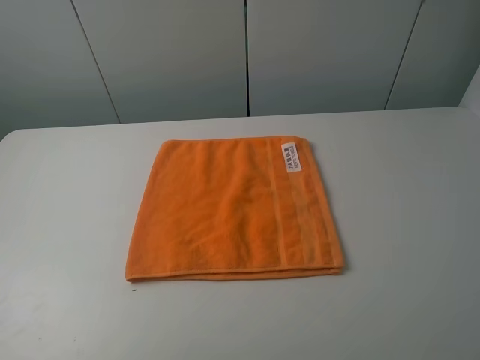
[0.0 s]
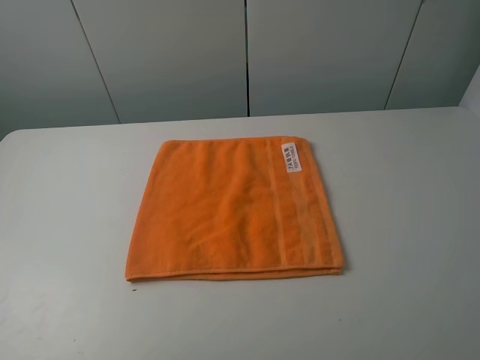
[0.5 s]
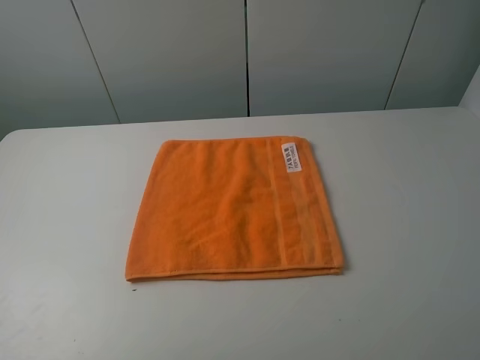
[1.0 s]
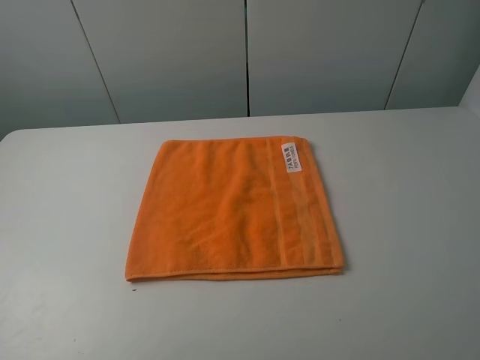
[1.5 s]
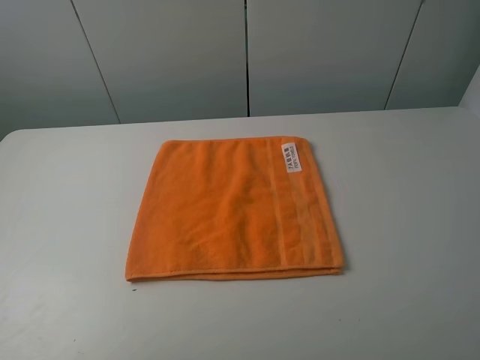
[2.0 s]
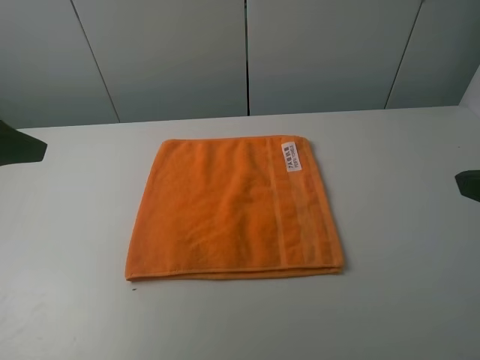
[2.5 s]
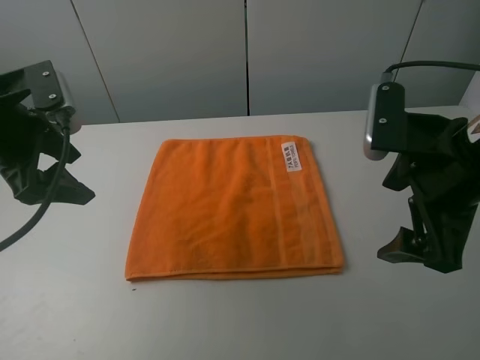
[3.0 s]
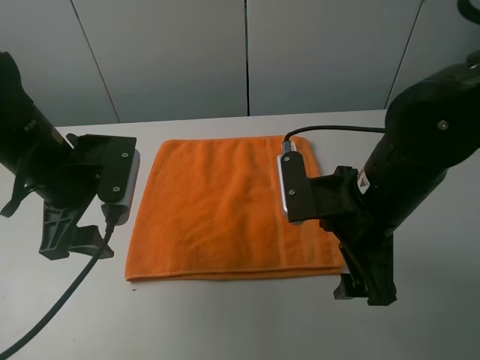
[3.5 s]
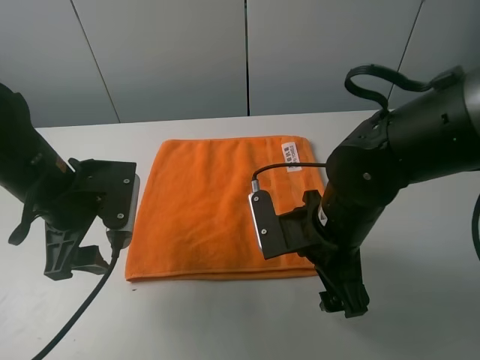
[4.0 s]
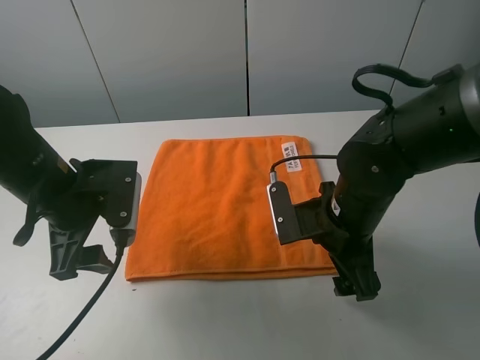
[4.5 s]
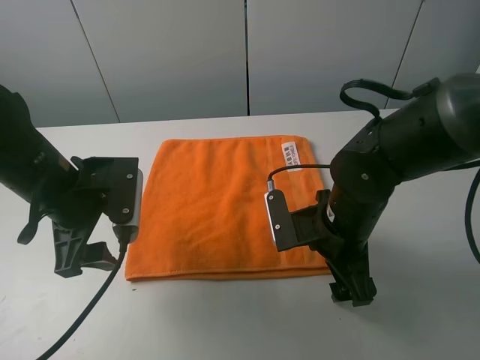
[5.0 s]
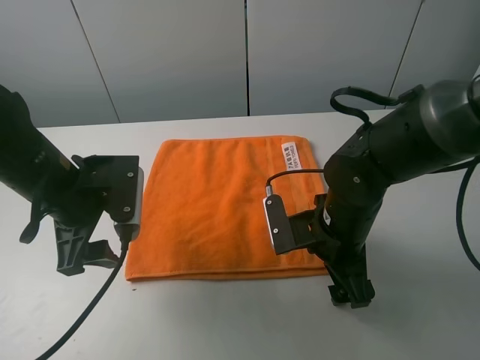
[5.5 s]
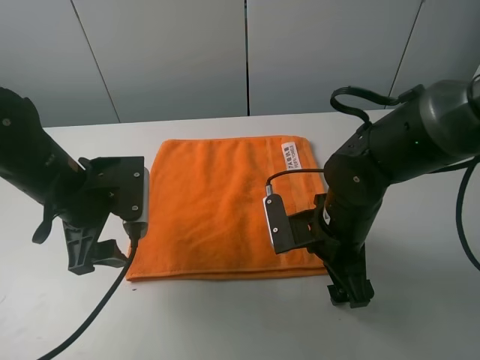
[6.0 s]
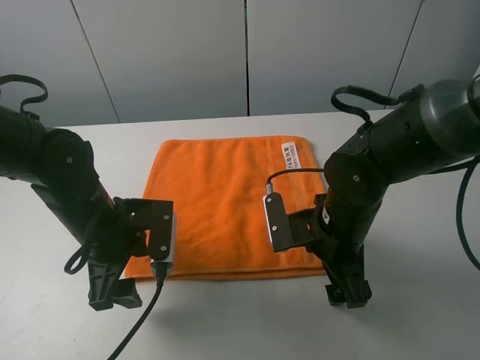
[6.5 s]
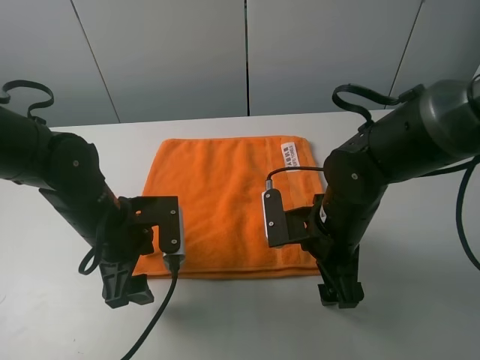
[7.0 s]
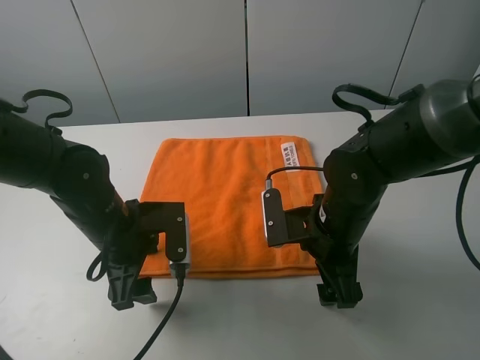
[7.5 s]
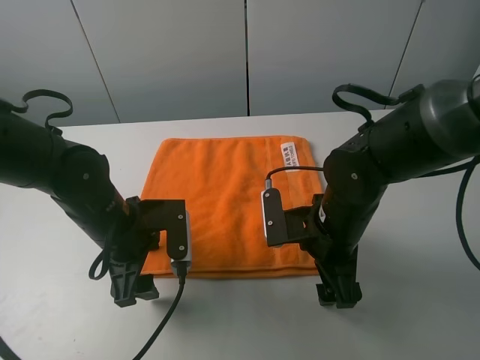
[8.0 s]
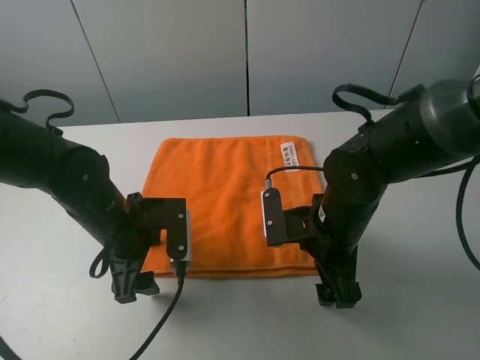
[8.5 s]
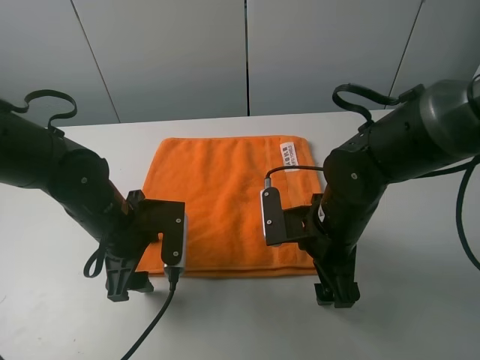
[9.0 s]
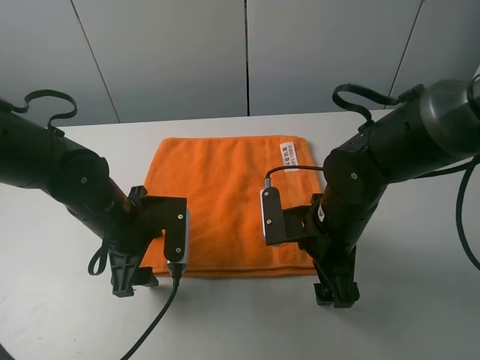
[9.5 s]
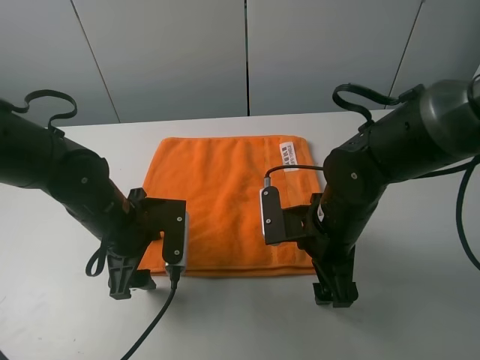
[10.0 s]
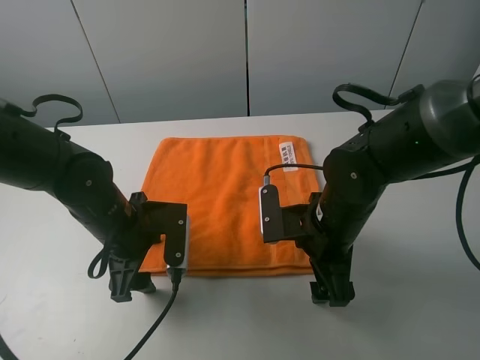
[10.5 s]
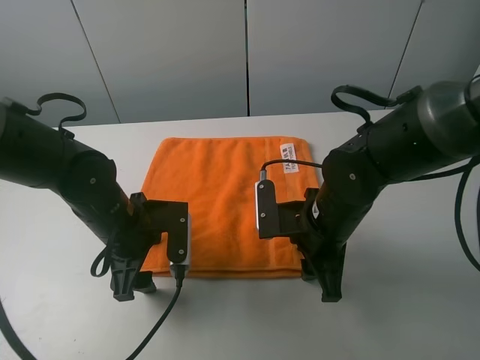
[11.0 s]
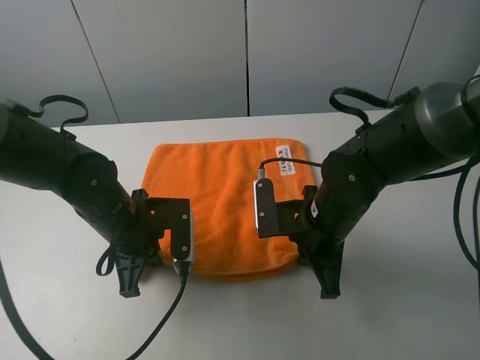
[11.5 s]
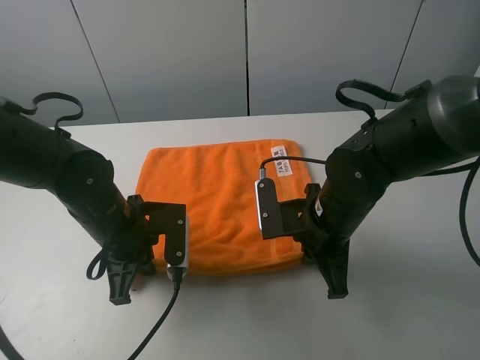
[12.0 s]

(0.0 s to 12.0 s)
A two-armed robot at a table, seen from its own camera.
Task of the whole recording: fold the towels on the table.
Step, 0.0 s - 11.0 s: Grasp the orange towel with the right gripper.
2.0 s - 4.0 s: The left gripper heads forward, downward and to the right, covering roughly 25 cm; the right gripper travels forward, to the left and downward by approximately 30 cm.
4.0 s - 6.0 s: The grippers make only small movements.
6.0 s - 8.0 s: The left gripper moves downward, about 5 cm.
8.0 s - 10.0 s: The grippers move only a little.
10.0 s - 12.0 s: The left gripper closes its fingers; the right gripper closes up.

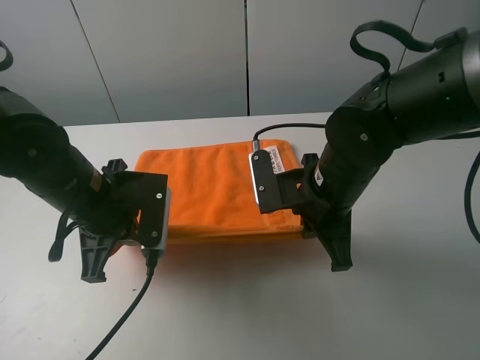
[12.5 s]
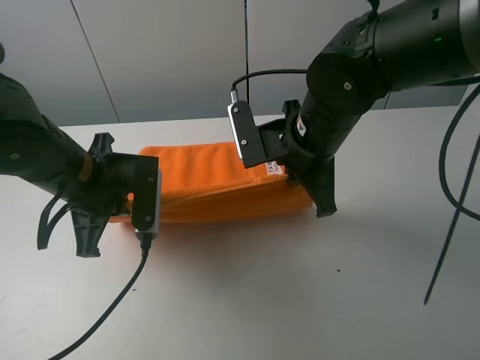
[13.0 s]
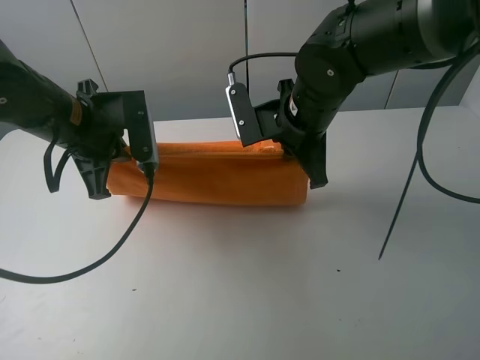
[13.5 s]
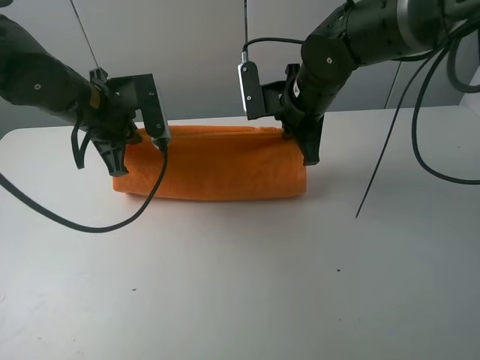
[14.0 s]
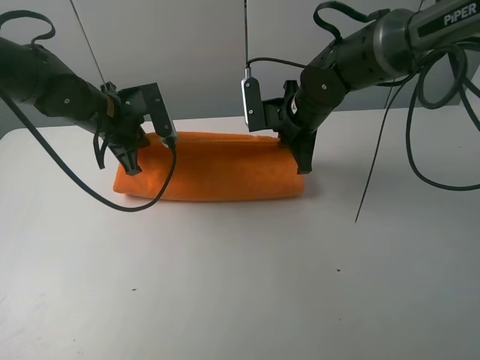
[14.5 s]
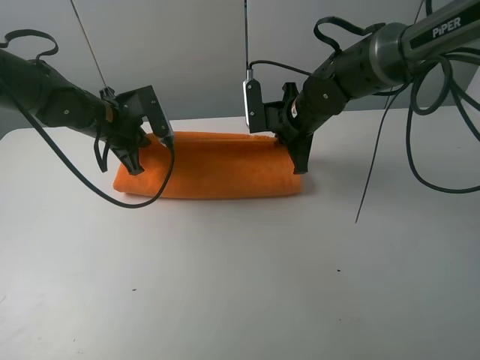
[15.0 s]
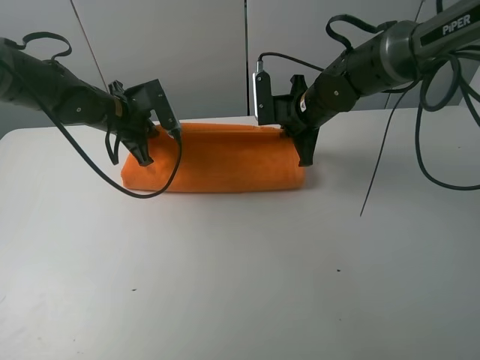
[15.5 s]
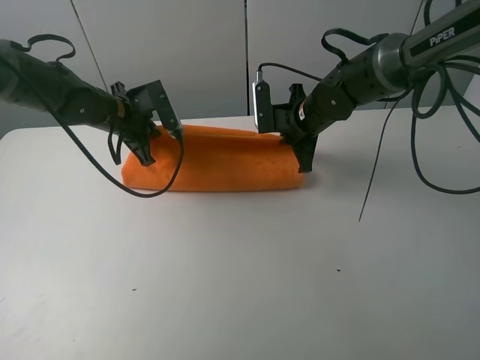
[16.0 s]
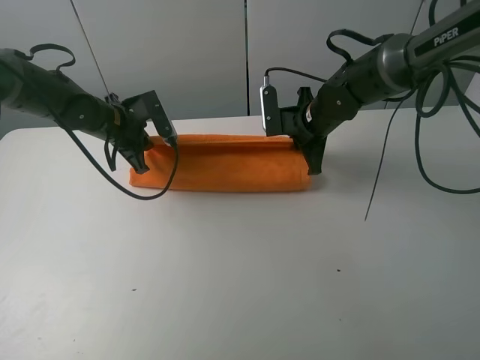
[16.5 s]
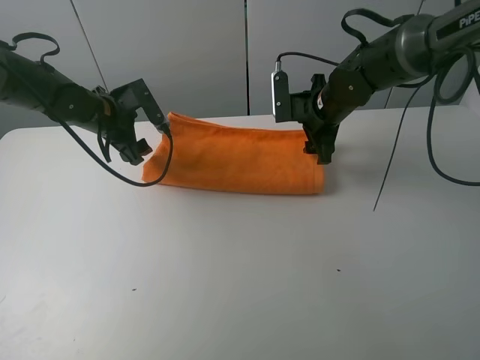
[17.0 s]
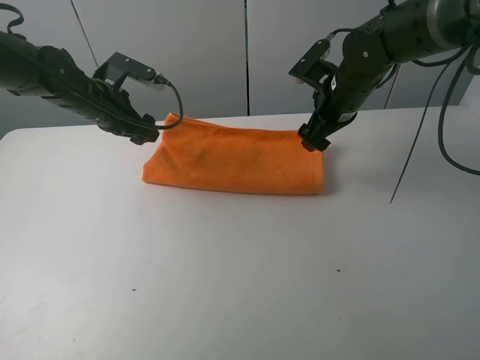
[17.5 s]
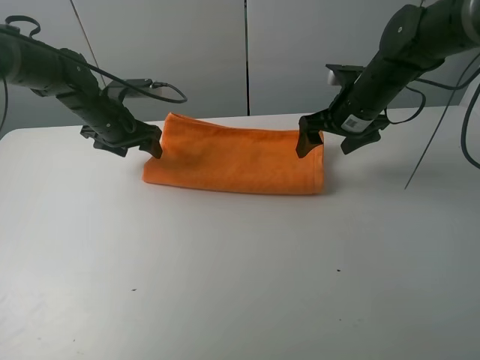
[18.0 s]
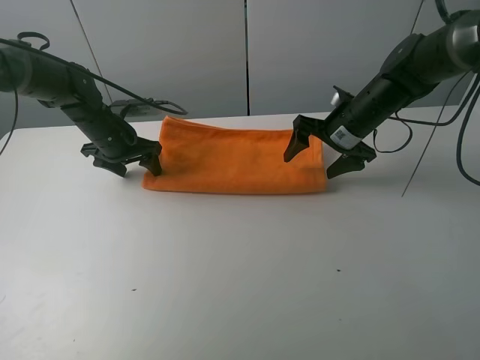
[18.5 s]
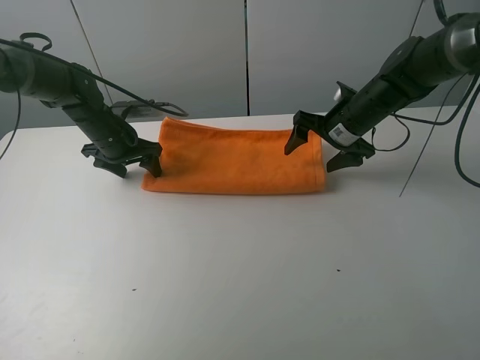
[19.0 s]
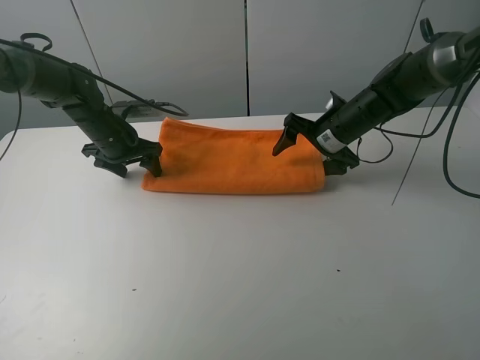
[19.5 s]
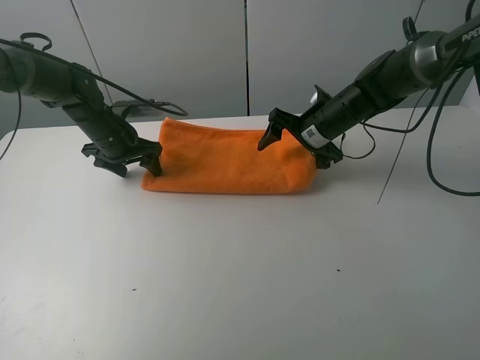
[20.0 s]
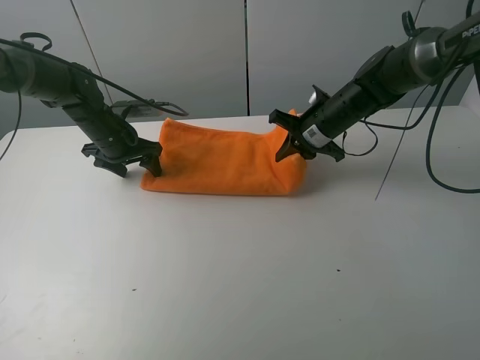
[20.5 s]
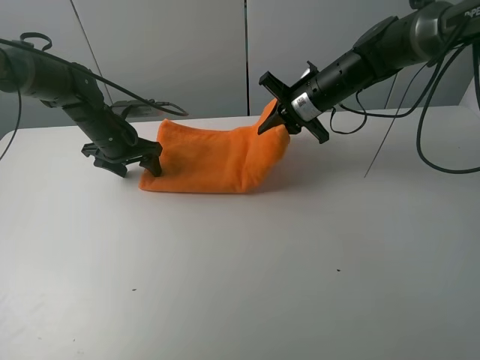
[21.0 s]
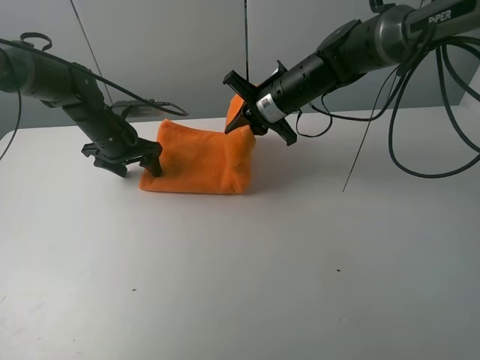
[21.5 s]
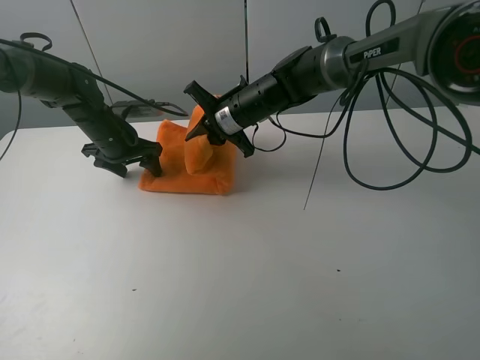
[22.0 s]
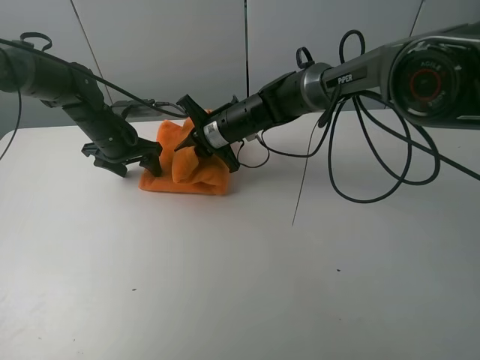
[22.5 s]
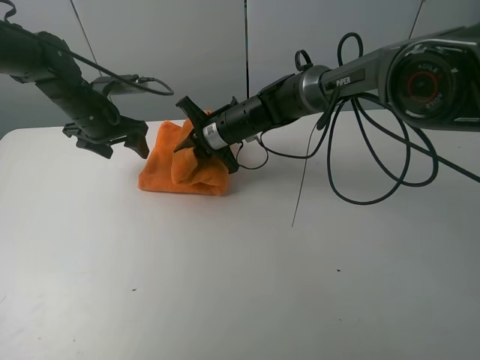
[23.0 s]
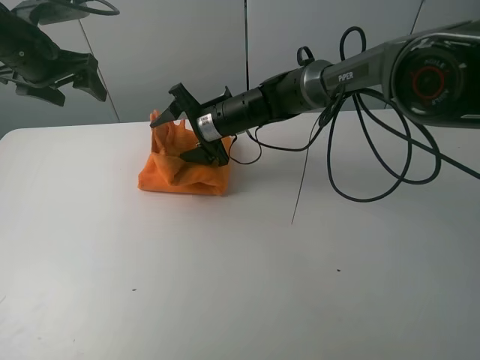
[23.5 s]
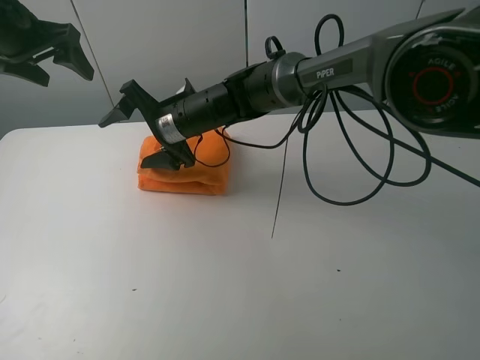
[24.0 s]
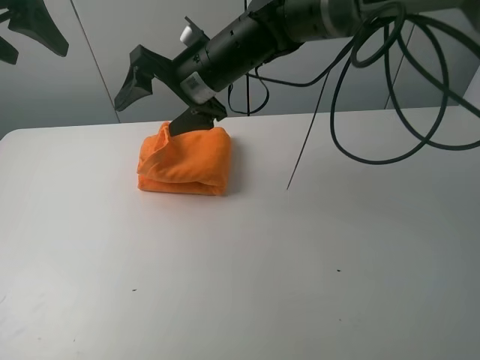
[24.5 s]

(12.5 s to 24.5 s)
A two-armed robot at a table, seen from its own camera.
Task of the whole recording: fold the towels on the table.
Step, 12.5 s - 17.0 s: Fold the orange towel upwards with the right gripper.
Step, 17.5 s - 18.0 s: Press on the orange towel with the left gripper.
Step, 18.5 s - 23.5 s: Fold the orange towel from right to left with right gripper.
12.5 s - 14.5 s: Both grippers move forward, roughly 15 cm.
14.5 s - 16.5 s: The left gripper ends up approximately 5 cm from where it was, while the right gripper changes place by some 5 cm.
16.5 s - 18.5 s: The left gripper opens its fingers, while the right gripper moves roughly 5 cm, and opens up.
18.5 s - 20.5 s: The right gripper closes up.
20.5 s - 22.5 s: The right gripper shifts about 15 cm to the left.
22.5 s - 24.5 s: The left gripper shifts some 25 cm upward; the right gripper travels upward by some 15 cm, and opens up.

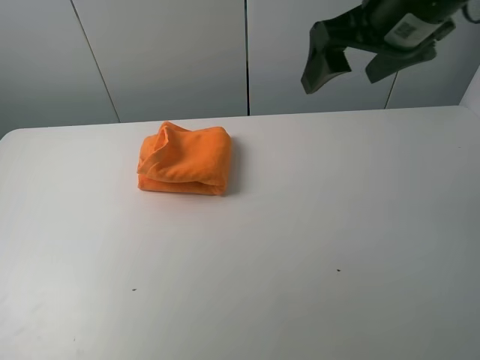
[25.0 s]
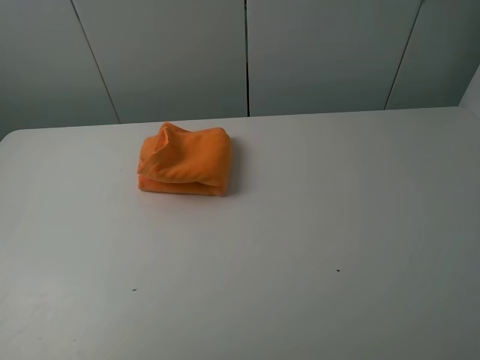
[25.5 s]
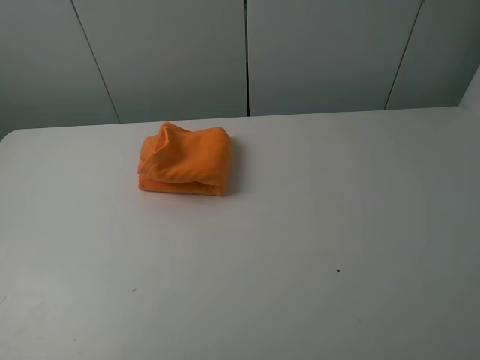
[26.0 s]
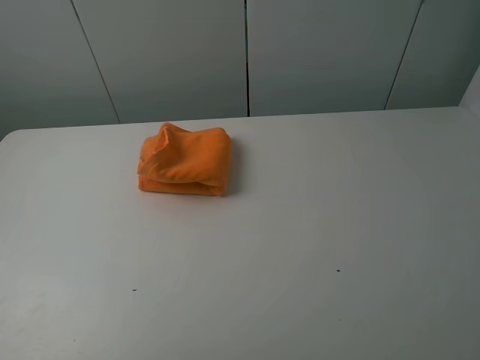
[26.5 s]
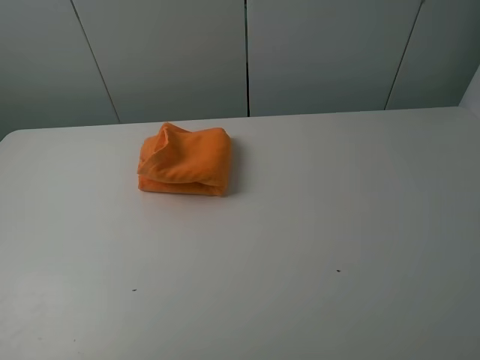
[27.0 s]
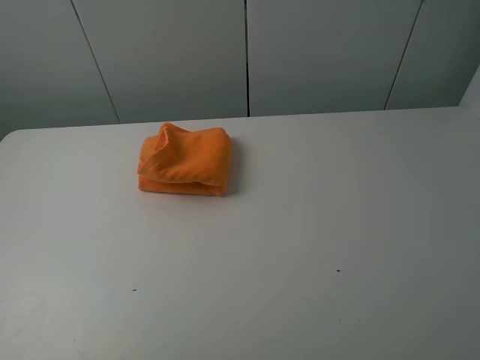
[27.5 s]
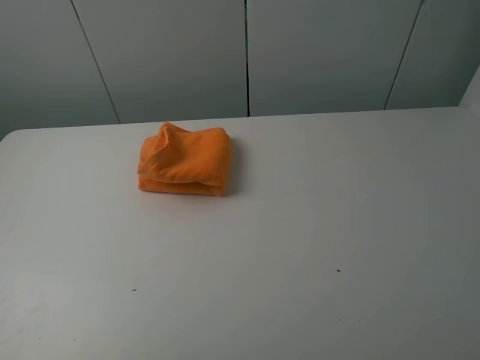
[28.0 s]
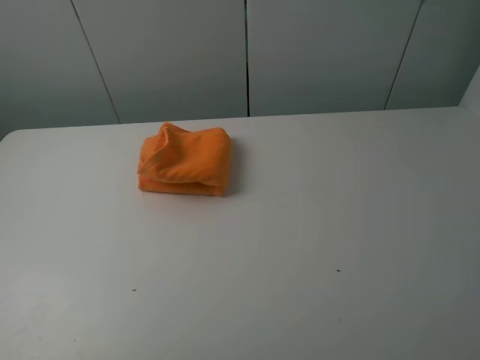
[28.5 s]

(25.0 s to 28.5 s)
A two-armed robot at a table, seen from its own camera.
Task of the whole recording: fold the towels on the table.
25.0 s - 27.0 s: The right gripper goes approximately 30 cm backward and to the right. Meanwhile the left gripper travels backward and downward by roughly 20 cm.
